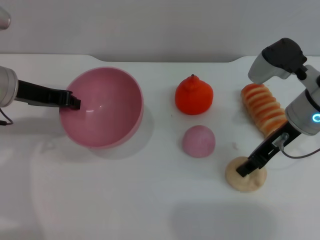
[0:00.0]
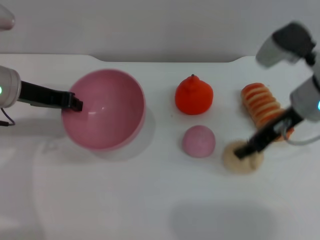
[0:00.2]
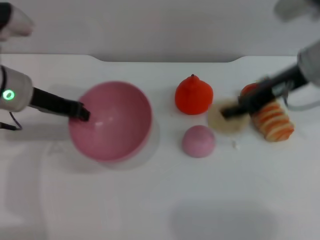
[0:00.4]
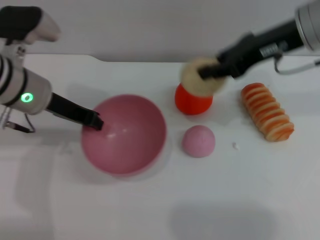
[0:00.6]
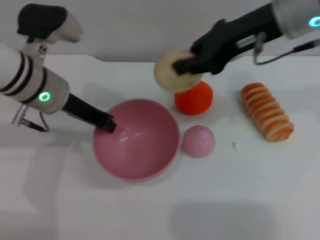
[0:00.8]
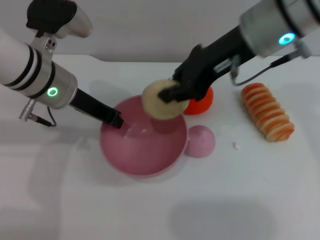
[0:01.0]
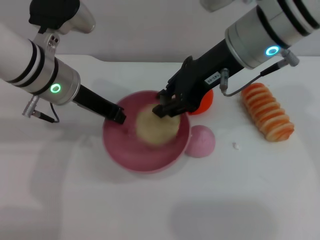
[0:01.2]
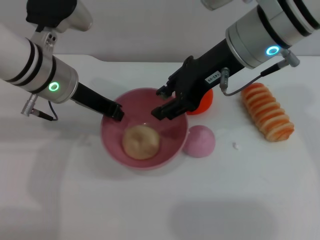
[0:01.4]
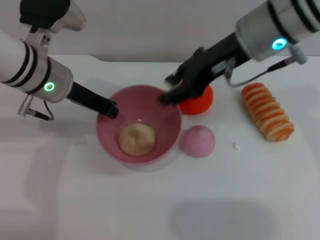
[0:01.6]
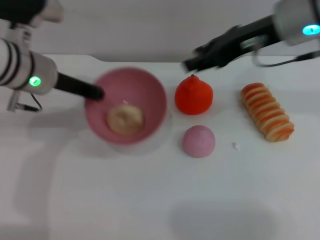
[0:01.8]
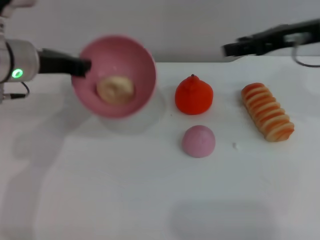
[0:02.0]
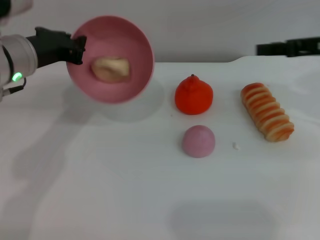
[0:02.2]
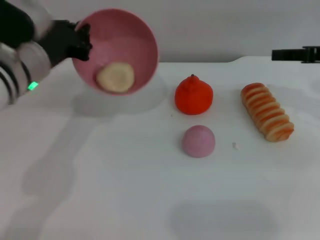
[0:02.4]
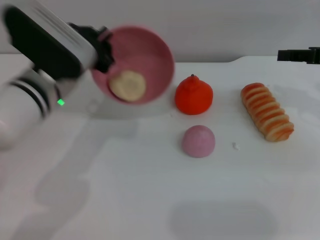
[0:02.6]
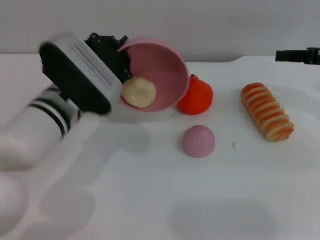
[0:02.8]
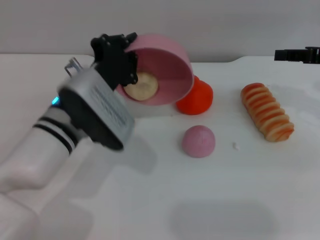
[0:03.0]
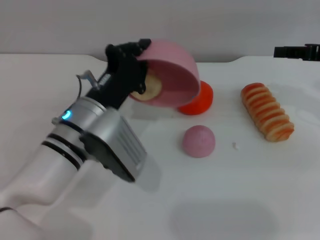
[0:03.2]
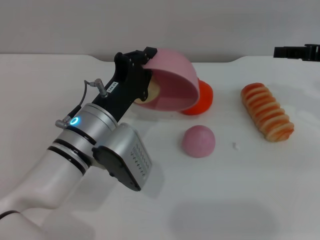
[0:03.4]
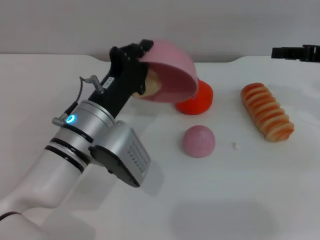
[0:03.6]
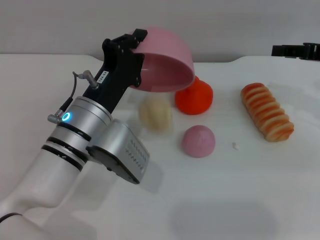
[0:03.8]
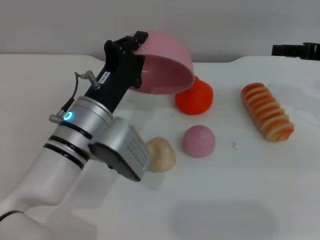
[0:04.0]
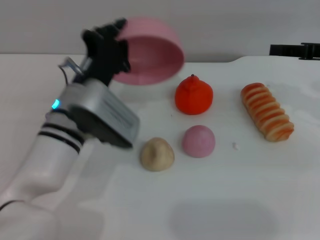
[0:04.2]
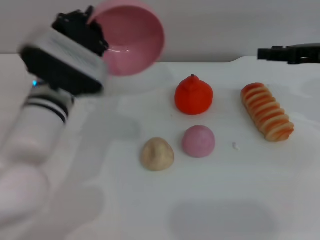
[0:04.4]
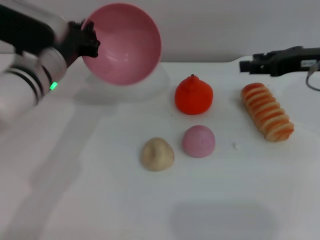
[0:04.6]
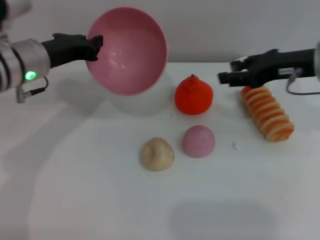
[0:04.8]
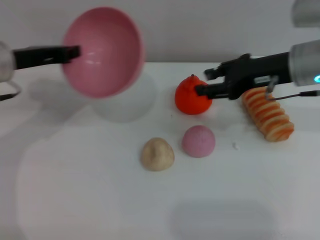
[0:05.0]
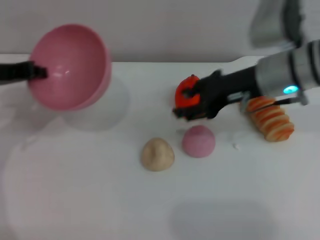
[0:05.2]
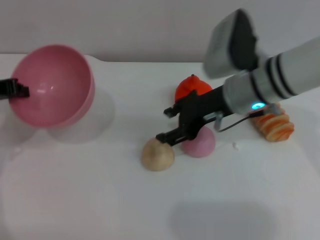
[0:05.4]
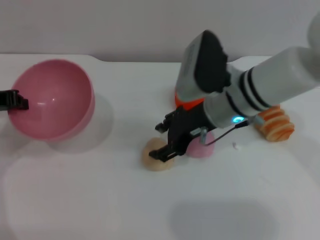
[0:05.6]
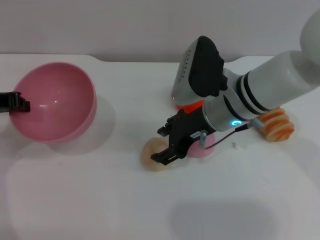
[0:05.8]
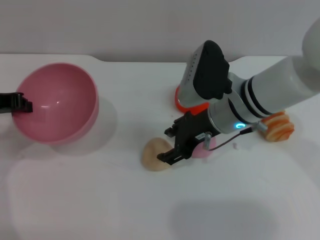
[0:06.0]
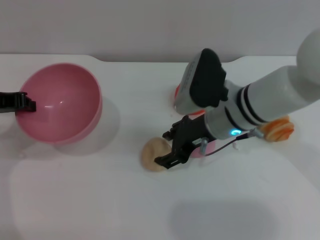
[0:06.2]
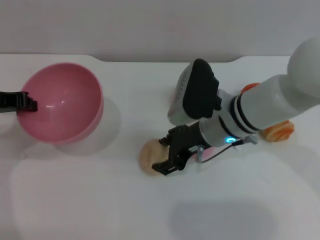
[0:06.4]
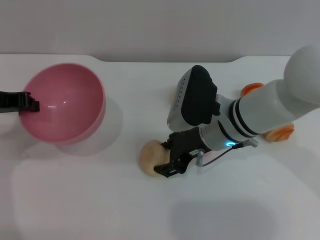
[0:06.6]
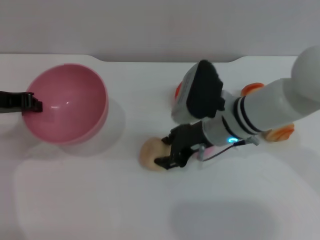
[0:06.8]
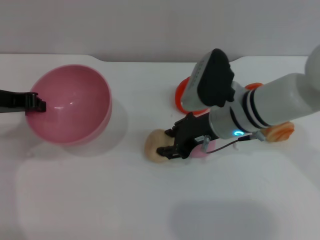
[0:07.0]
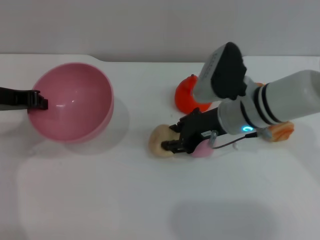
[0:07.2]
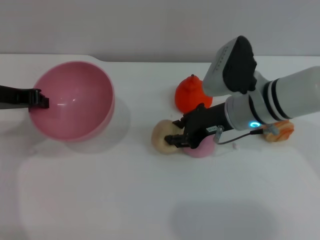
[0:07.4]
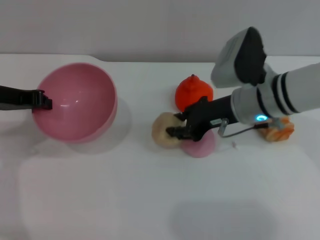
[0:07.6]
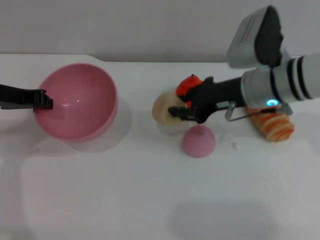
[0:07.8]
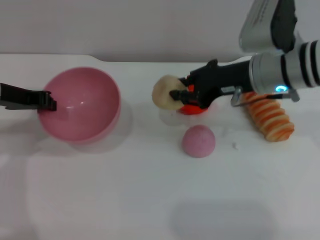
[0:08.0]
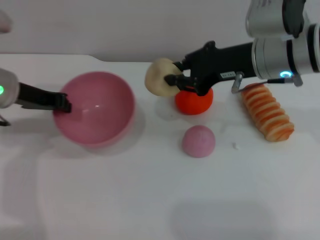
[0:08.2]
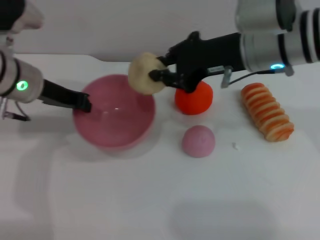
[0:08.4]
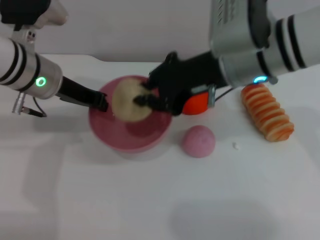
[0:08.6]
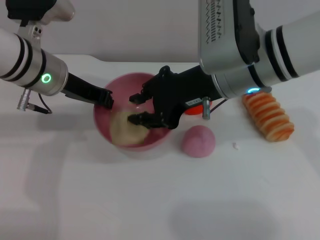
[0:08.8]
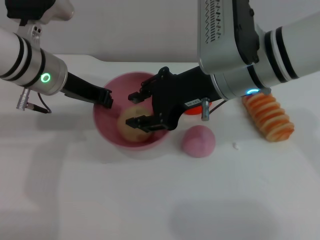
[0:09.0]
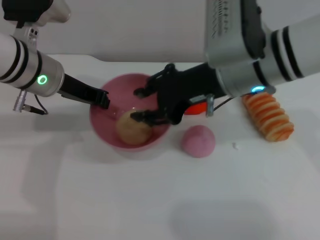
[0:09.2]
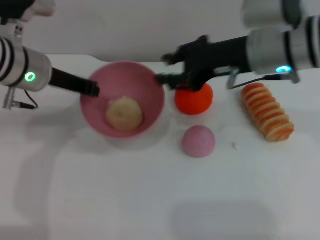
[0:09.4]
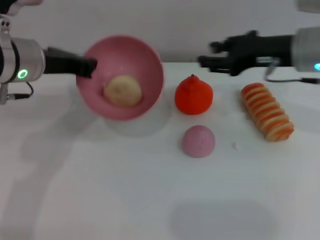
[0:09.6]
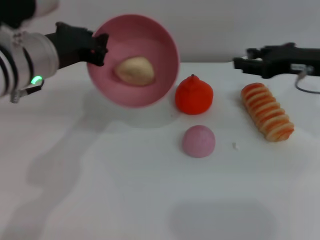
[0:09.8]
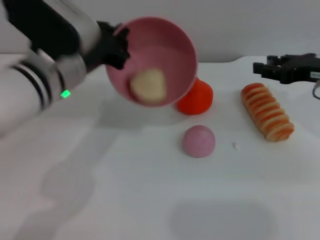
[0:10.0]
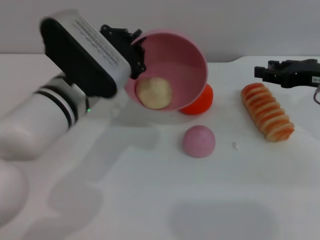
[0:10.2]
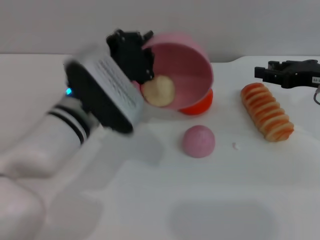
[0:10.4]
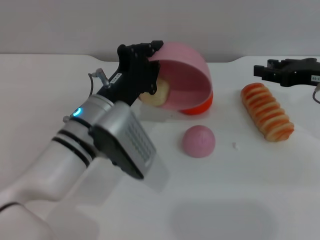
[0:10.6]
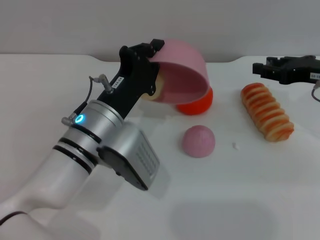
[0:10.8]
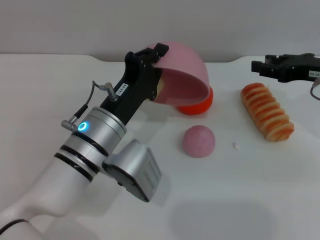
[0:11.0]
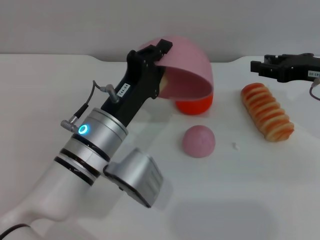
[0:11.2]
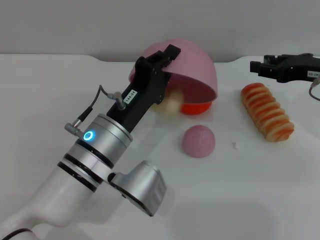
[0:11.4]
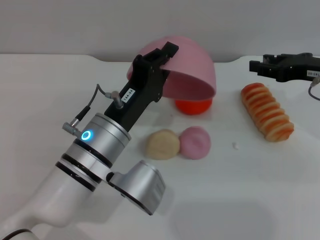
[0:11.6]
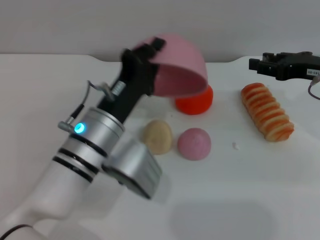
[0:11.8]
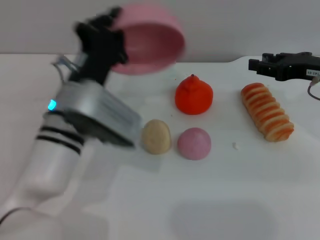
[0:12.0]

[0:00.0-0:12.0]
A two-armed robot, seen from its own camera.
Task of the whole recording: put the egg yolk pastry into the pink bowl and pour it out repeatedly.
Step, 0.6 to 2.2 s: Place the egg yolk pastry into the bowl.
Step, 2.4 to 4.2 s: Pour the egg yolk pastry out of bowl.
Step, 4.4 to 7.4 s: Pick up the egg yolk pastry with the right gripper.
Step, 7.8 to 9.4 s: Place the egg yolk pastry into the bowl.
Step, 9.6 to 11.8 s: Pour the egg yolk pastry out of bowl.
0.0 to 1.6 s: The left gripper goes approximately 10 cm to the right, while the right gripper heads upward and to the left, covering roughly 15 cm, and closes and opens again.
1.6 to 3.0 s: The right gripper goes some 20 cm to the right. The left gripper moves backward and downward, some 10 cm.
4.4 to 6.0 s: Both grippers move to the left, some 20 cm.
6.0 to 7.6 s: The right gripper closes up.
7.6 to 9.0 s: The left gripper shifts approximately 10 cm to the right; the right gripper goes about 10 cm upward, and closes, then reopens.
9.0 to 10.4 s: The right gripper goes approximately 20 cm to the right. The left gripper moves backward, to the right and downward, approximately 10 cm.

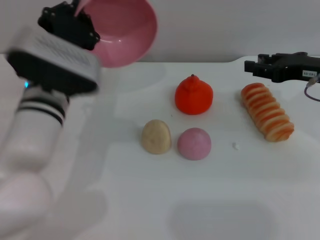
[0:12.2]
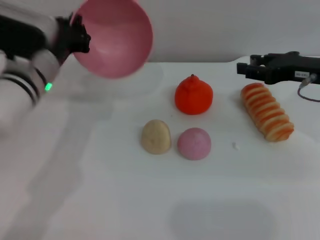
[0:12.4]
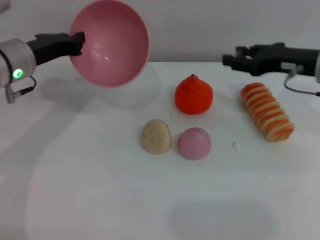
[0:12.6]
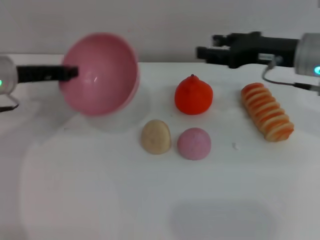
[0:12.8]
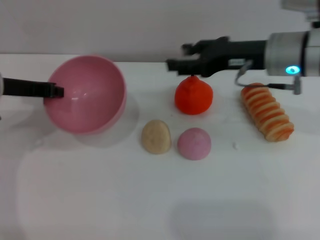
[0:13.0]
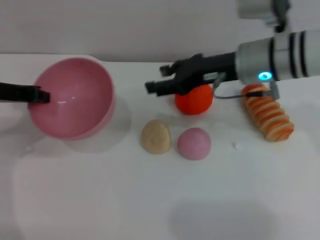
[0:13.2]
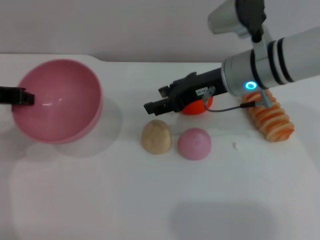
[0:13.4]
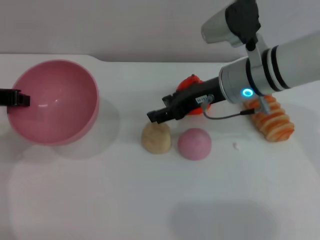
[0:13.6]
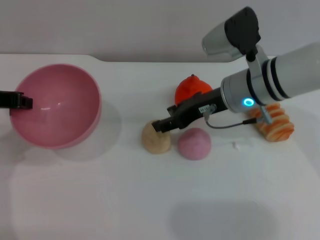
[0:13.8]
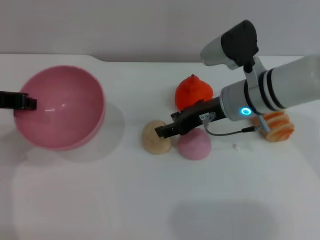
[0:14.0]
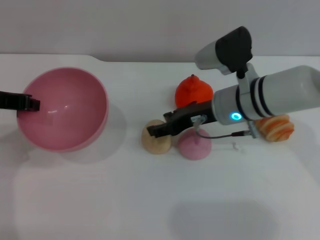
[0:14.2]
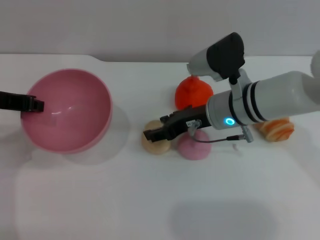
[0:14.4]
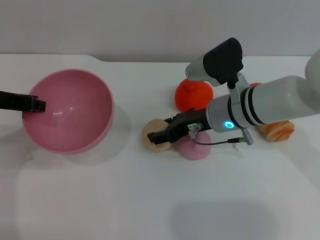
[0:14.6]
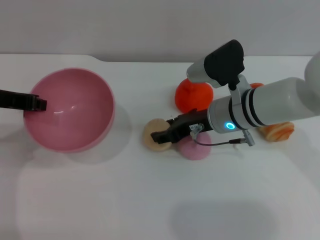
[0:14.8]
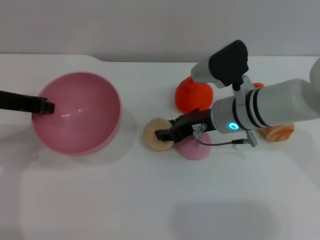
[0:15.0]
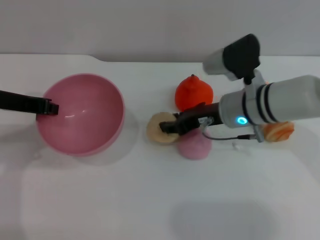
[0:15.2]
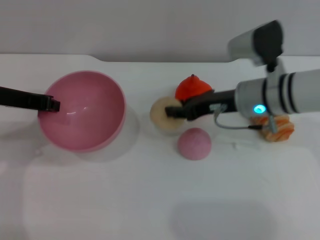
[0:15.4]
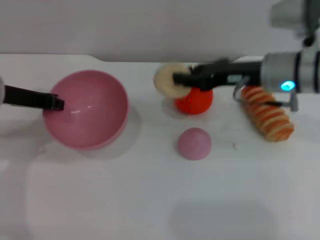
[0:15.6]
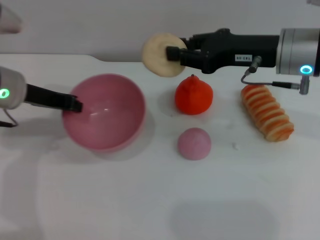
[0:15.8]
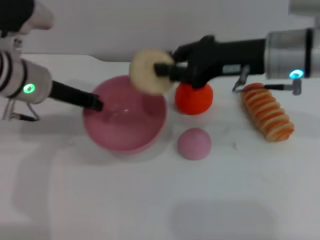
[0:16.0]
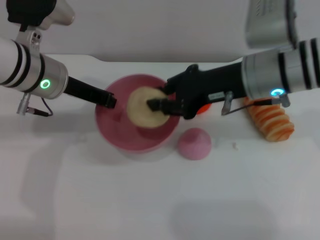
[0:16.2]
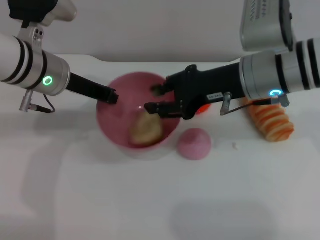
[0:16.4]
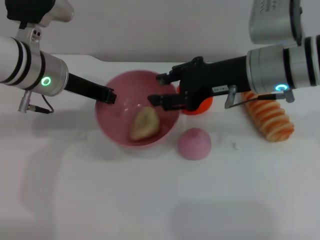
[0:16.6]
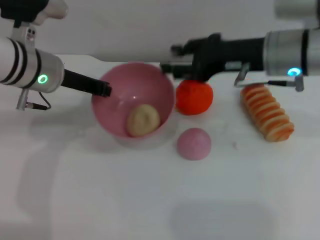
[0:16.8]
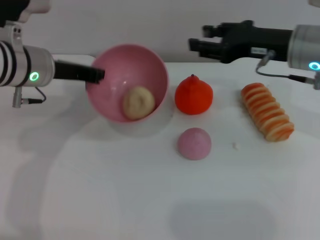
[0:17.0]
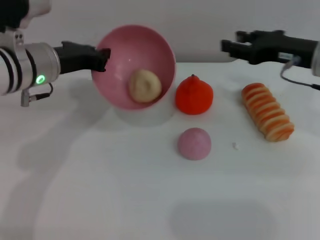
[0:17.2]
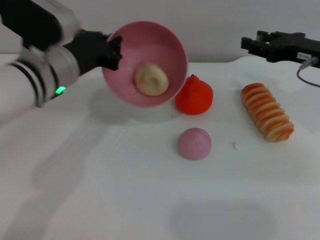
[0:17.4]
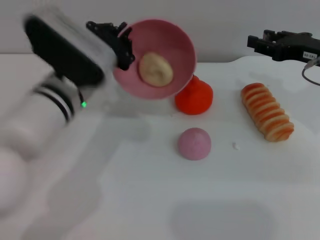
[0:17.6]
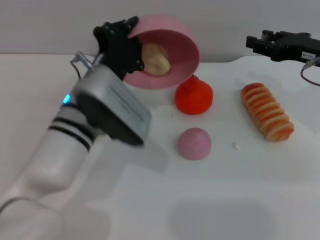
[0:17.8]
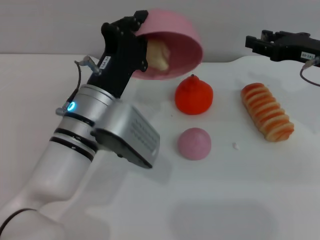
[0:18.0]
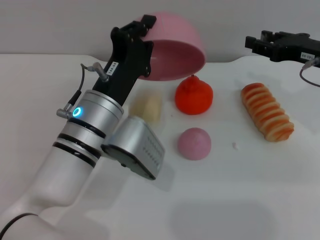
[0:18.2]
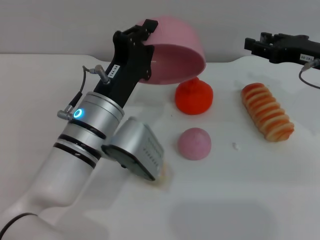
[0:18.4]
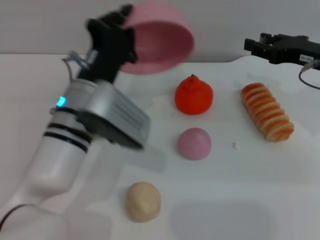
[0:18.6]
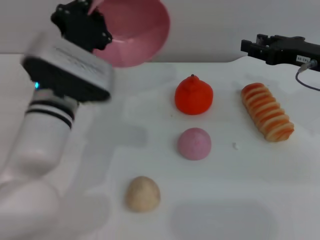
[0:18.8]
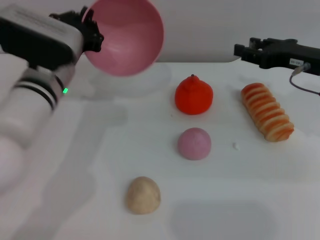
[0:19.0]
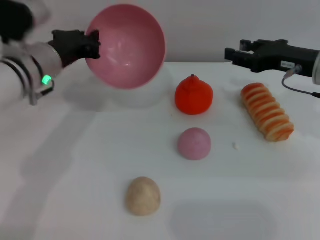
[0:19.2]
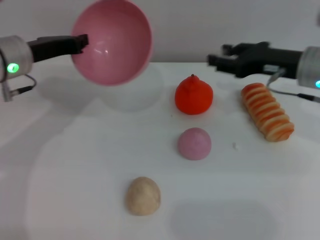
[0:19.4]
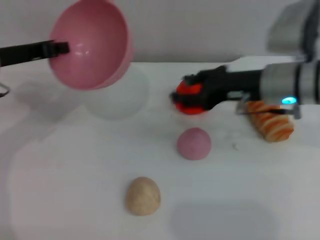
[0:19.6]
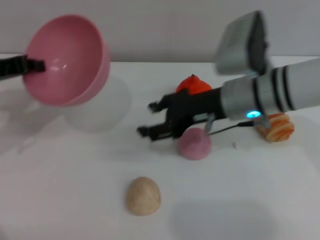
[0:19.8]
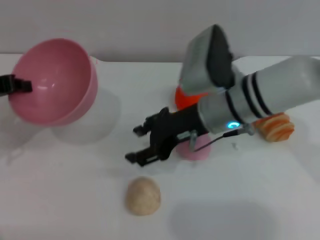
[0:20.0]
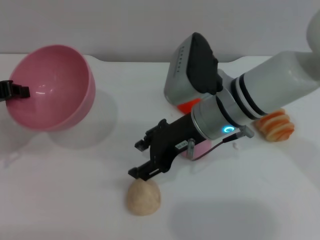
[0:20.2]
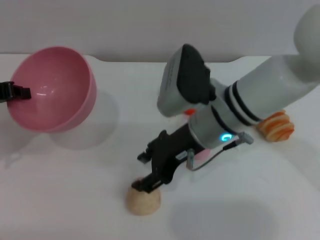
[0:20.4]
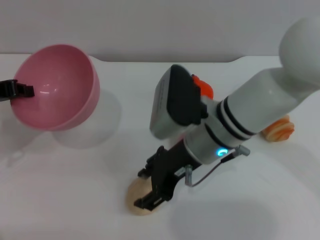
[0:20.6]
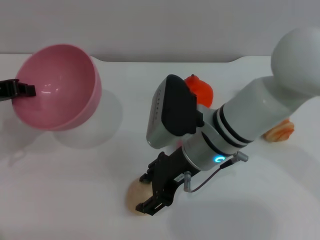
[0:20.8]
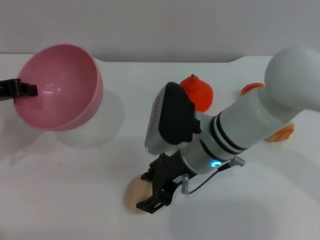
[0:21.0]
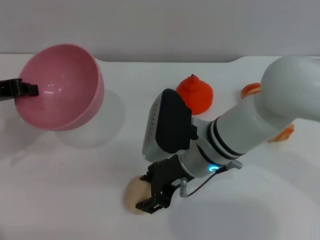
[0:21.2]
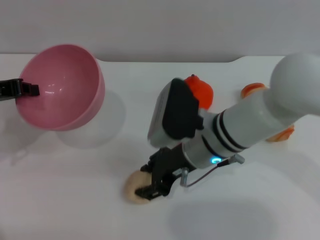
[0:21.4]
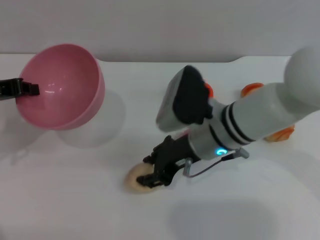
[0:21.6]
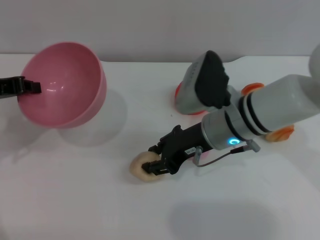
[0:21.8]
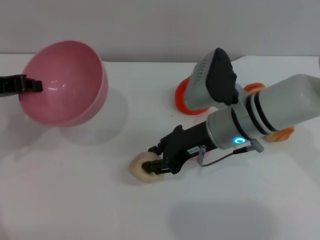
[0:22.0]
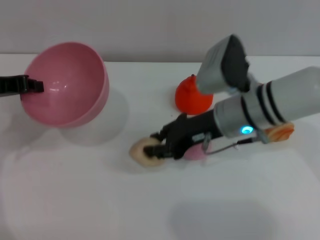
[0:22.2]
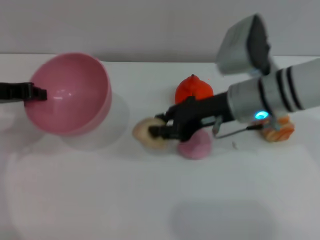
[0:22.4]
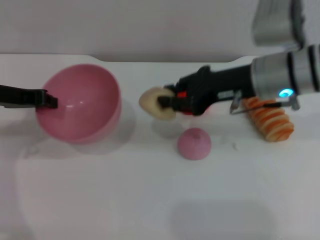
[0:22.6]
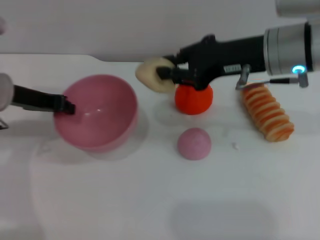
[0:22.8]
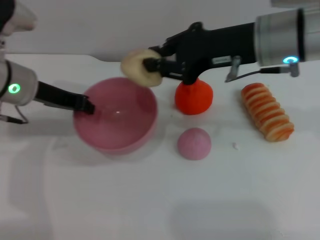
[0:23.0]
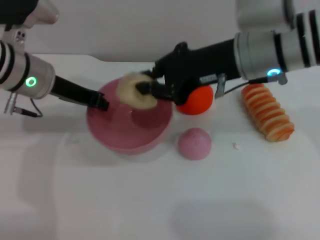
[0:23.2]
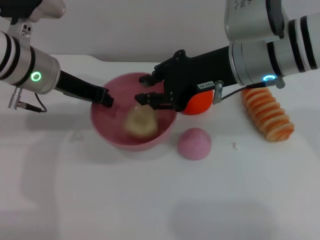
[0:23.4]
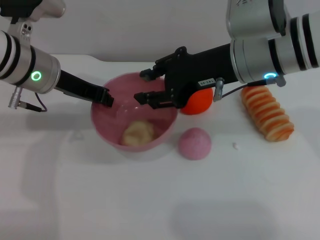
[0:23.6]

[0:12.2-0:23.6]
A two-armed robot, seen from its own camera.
Task of the whole recording: put the egg yolk pastry into the pink bowl and pour it out repeatedly.
Step, 12.2 to 15.8 s: Pick up the egg yolk pastry with the right gripper.
Step, 16.0 to 16.6 s: Place the egg yolk pastry into the bowl.
Step, 16.8 to 18.6 s: Pour the egg yolk pastry out of bowl.
Step, 18.8 to 22.4 s: Pick up the egg yolk pastry with the right gripper.
12.2 to 13.6 s: The left gripper is displaced to the left and upward by roughly 15 cm; the right gripper travels to the left by roughly 15 cm.
13.6 to 15.0 s: The right gripper heads downward, covering roughly 5 cm, and closes up.
15.0 to 16.4 s: The right gripper heads upward, covering approximately 10 cm, and closes. Meanwhile the left gripper goes approximately 10 cm to the right and forward.
16.4 to 17.8 s: The right gripper shifts approximately 15 cm to the right, and opens up. Meanwhile the left gripper goes approximately 10 cm backward, to the right and downward.
17.8 to 19.4 s: The left gripper moves to the left and forward, some 15 cm.
19.4 to 20.8 s: The right gripper moves to the left, some 15 cm. Meanwhile the left gripper heads to the left and backward, covering about 10 cm.
20.8 to 22.2 s: The right gripper shifts about 5 cm to the right, and closes up.
22.2 to 23.6 s: The right gripper goes about 10 cm upward. The left gripper moves to the right and forward, approximately 10 cm.
